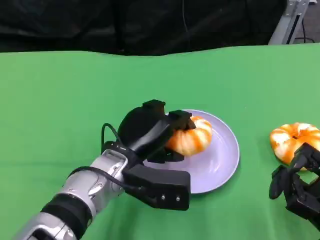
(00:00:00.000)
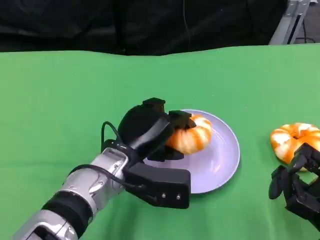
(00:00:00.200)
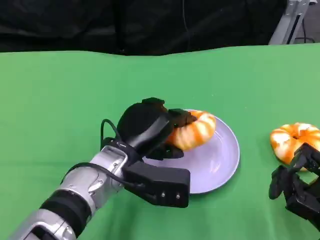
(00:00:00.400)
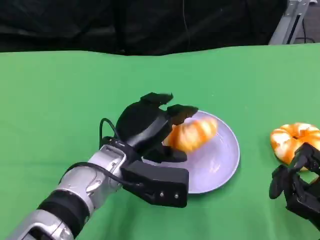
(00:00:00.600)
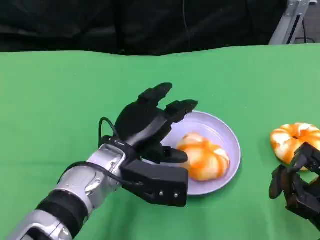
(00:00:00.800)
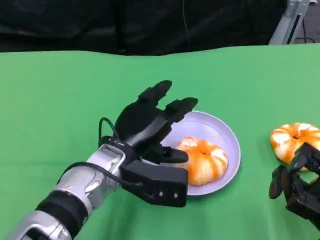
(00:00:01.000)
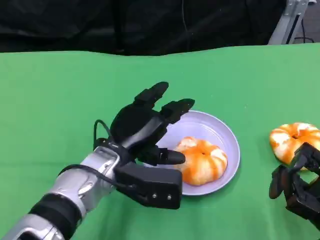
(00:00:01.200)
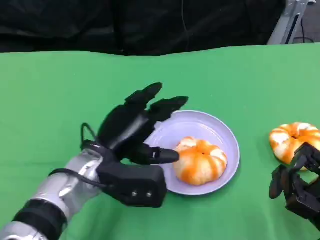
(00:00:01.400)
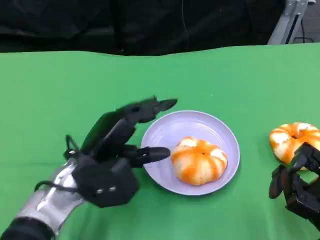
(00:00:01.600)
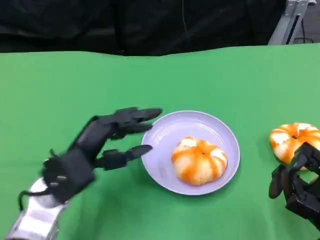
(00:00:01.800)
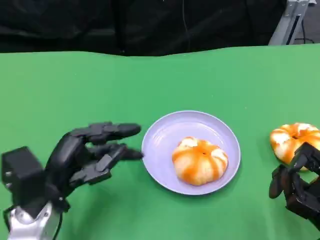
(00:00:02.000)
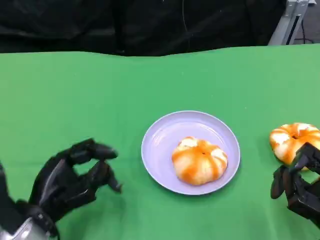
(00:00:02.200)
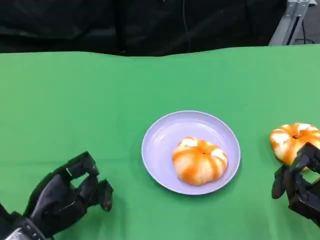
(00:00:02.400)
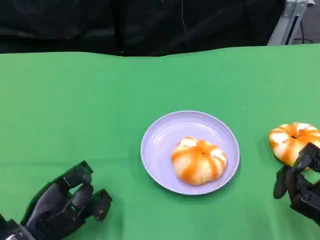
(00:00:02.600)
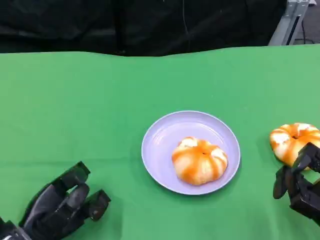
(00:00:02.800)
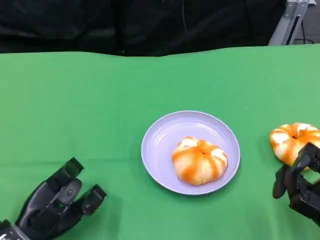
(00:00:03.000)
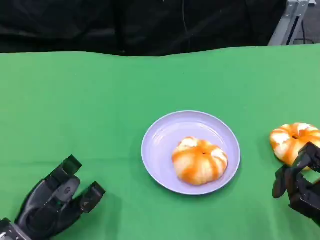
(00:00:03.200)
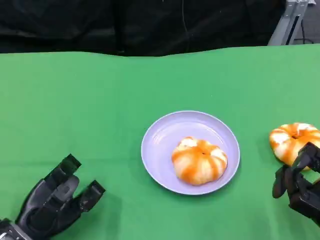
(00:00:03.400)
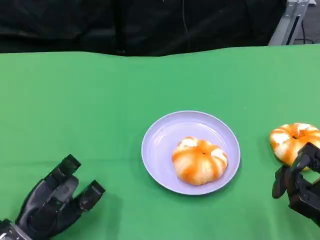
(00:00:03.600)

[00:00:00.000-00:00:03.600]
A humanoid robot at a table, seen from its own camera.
Task of the whole recording: Grasp the bread from the table and place it into the plate.
00:00:00.000 to 00:00:01.800: The left hand moves to the left, about 10 cm.
00:00:01.800 to 00:00:03.600: The left hand moves downward and to the left, approximately 10 cm.

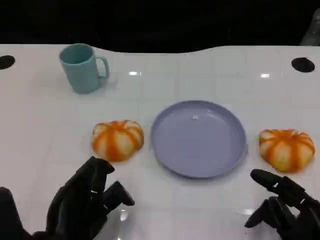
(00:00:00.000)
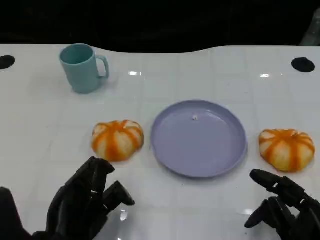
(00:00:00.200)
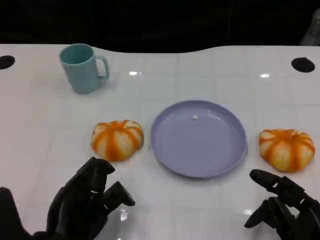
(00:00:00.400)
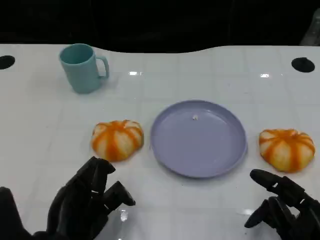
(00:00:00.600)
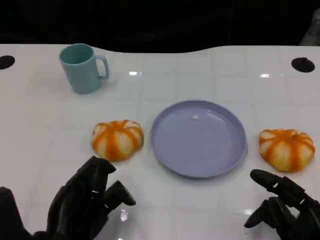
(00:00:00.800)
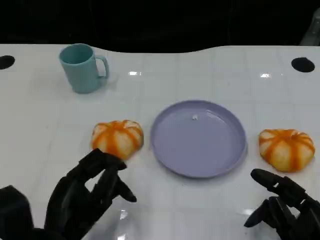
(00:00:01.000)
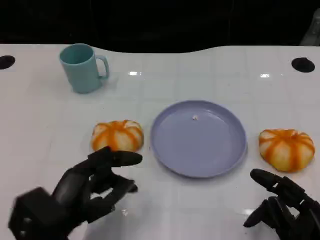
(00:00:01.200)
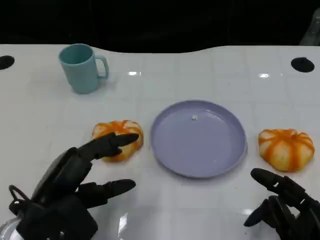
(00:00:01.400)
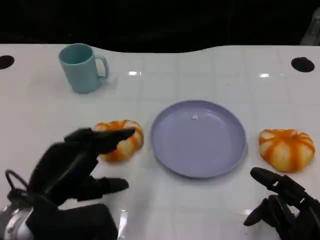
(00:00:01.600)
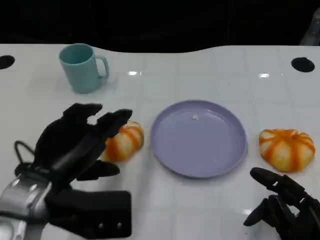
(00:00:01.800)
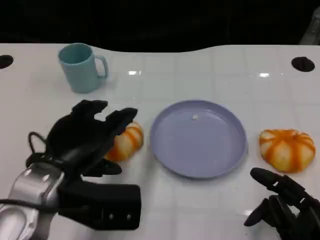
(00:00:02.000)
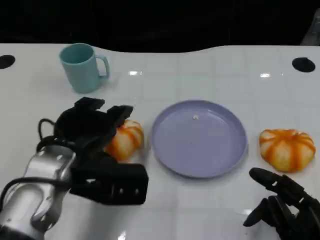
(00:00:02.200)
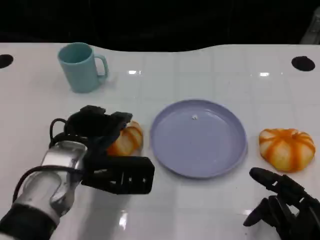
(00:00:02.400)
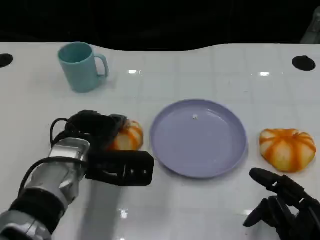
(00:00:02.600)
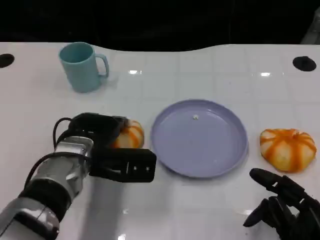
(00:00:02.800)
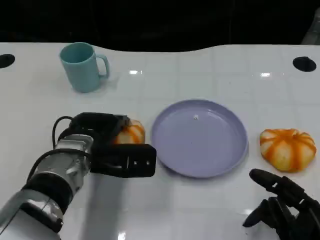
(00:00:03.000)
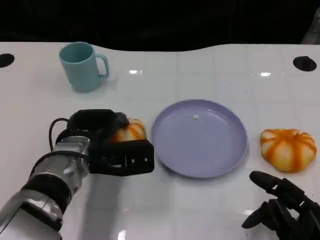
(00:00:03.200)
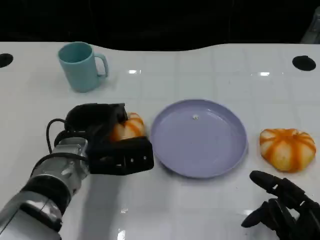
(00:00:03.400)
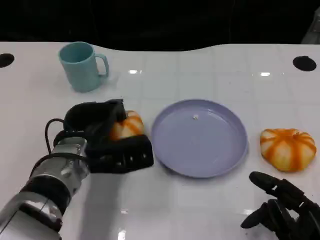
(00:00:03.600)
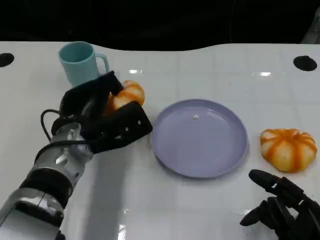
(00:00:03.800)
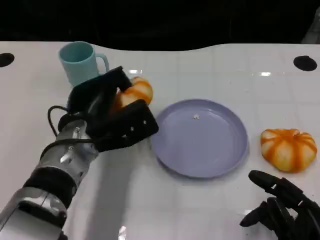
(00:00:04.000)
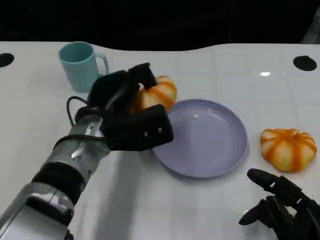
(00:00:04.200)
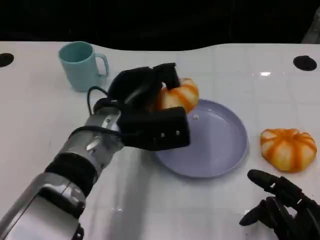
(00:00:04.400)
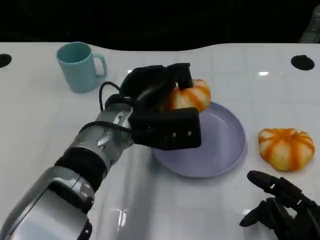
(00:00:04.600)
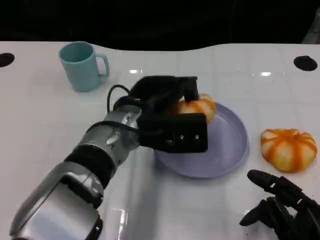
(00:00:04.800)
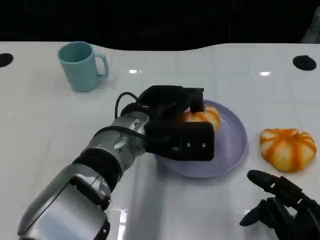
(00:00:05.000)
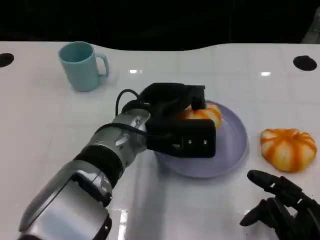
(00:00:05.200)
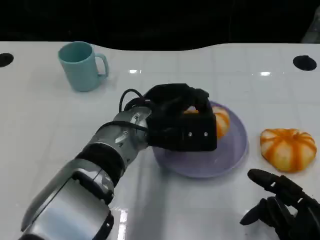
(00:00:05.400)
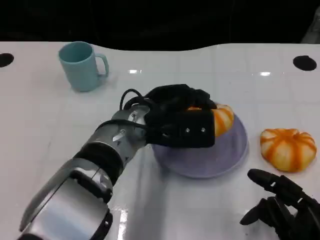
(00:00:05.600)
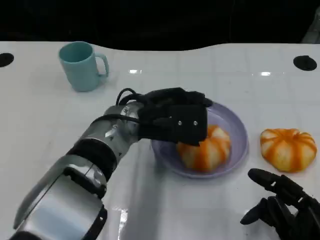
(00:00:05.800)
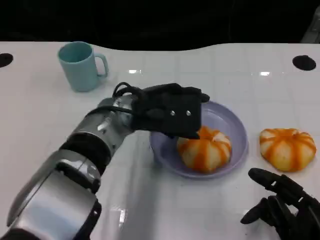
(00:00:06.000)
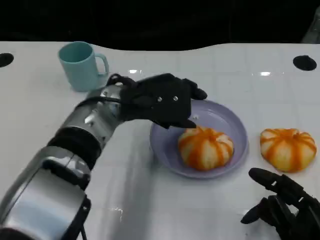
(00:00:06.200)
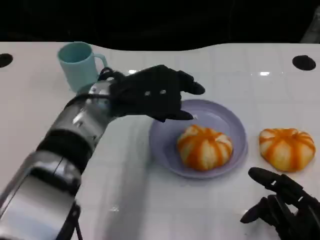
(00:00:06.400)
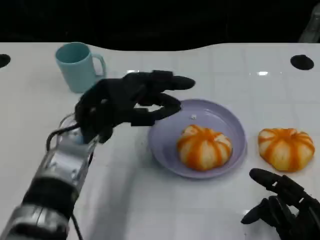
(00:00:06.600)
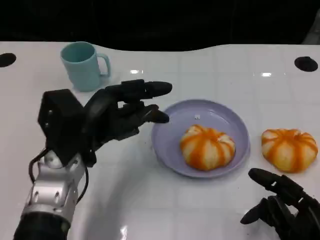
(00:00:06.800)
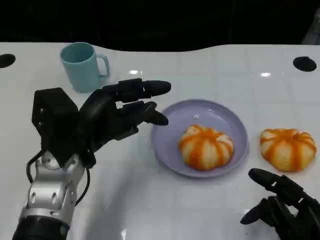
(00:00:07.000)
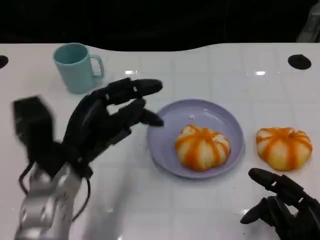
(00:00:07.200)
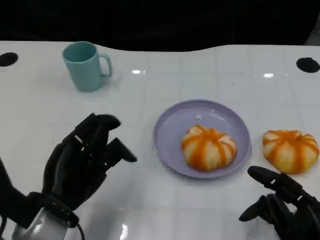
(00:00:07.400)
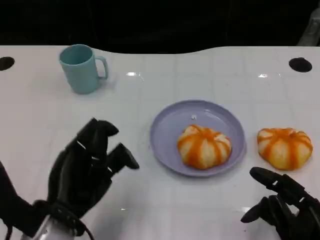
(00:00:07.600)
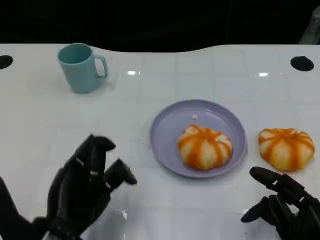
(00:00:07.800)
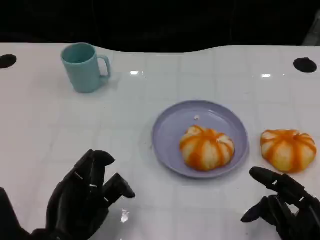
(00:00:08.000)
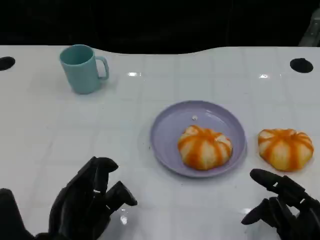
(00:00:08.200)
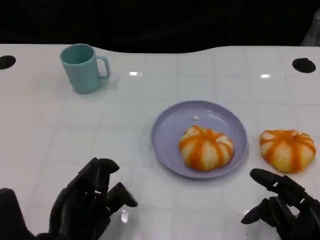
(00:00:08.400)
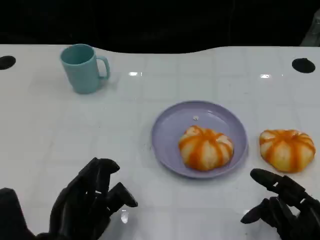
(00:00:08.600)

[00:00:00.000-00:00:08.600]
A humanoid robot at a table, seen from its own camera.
Task of the whole recording: Grasp the bread from the table and place it into the plate.
00:00:00.000 to 00:00:01.400: The left hand changes place by about 5 cm.
00:00:01.400 to 00:00:02.800: The left hand travels forward and to the right by approximately 15 cm.
00:00:02.800 to 00:00:04.400: The left hand moves to the right, about 5 cm.
00:00:05.800 to 00:00:07.200: The left hand is displaced to the left and backward by about 15 cm.
00:00:07.200 to 00:00:08.600: The left hand heads backward, covering about 10 cm.

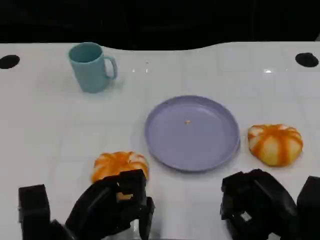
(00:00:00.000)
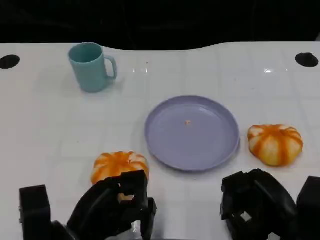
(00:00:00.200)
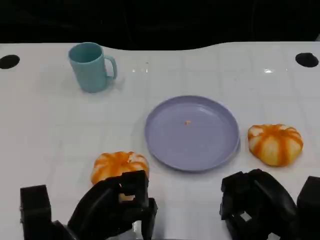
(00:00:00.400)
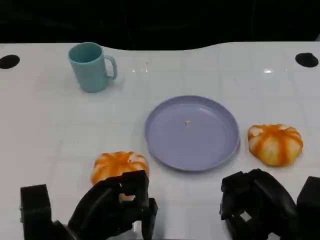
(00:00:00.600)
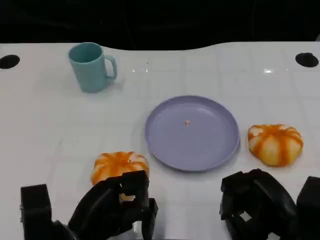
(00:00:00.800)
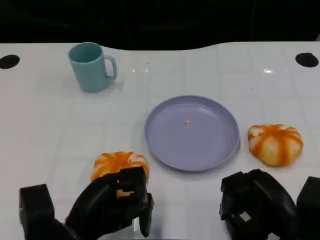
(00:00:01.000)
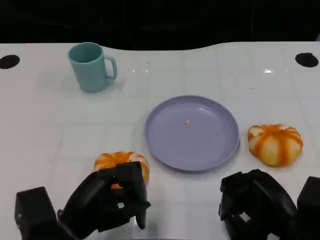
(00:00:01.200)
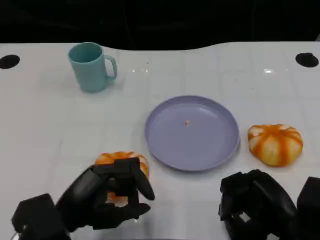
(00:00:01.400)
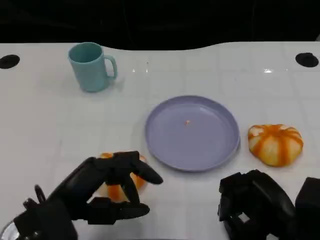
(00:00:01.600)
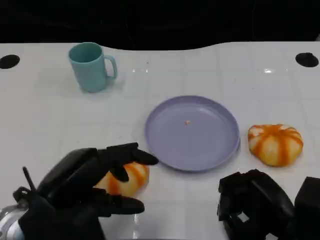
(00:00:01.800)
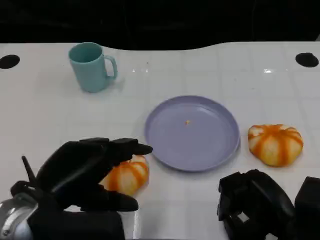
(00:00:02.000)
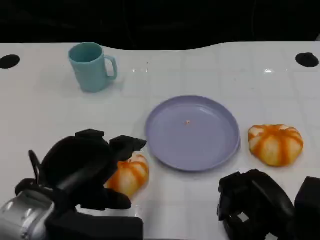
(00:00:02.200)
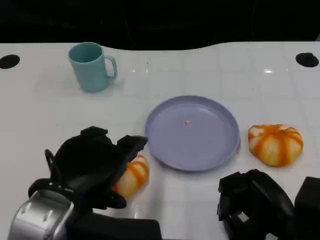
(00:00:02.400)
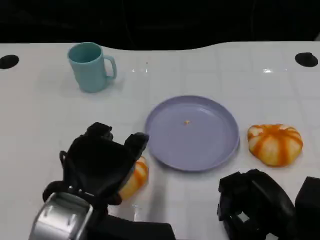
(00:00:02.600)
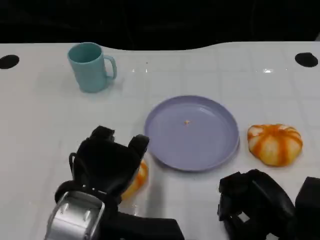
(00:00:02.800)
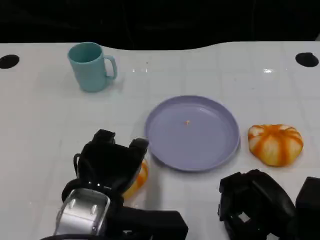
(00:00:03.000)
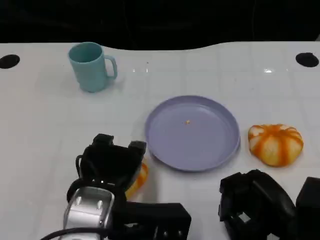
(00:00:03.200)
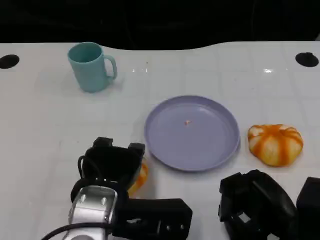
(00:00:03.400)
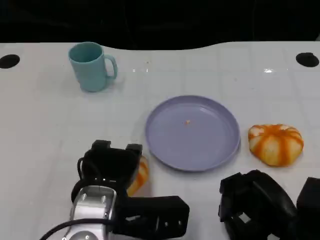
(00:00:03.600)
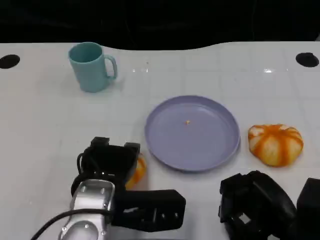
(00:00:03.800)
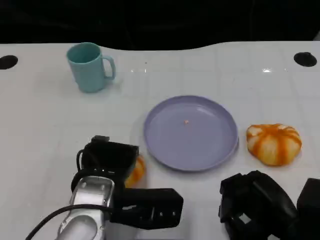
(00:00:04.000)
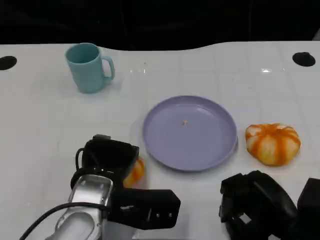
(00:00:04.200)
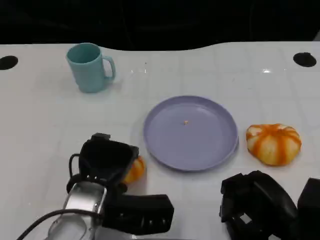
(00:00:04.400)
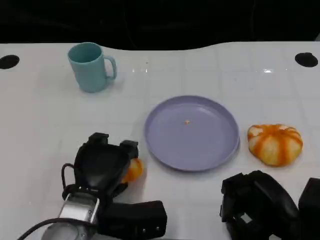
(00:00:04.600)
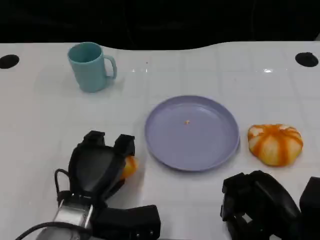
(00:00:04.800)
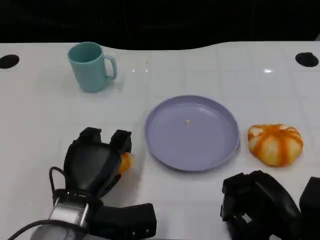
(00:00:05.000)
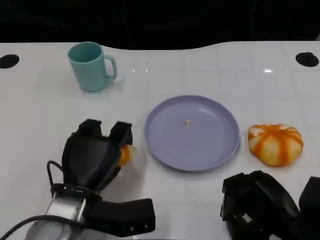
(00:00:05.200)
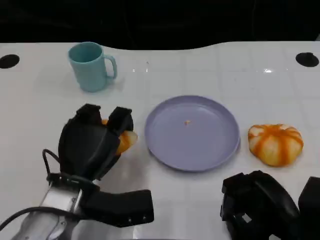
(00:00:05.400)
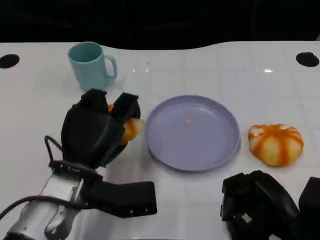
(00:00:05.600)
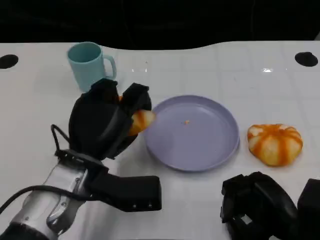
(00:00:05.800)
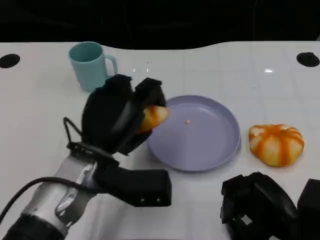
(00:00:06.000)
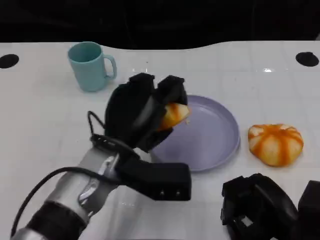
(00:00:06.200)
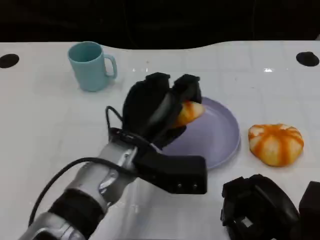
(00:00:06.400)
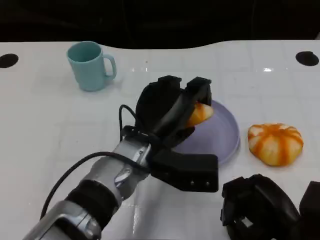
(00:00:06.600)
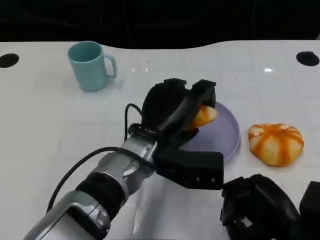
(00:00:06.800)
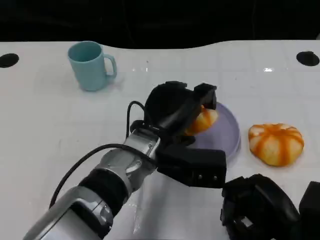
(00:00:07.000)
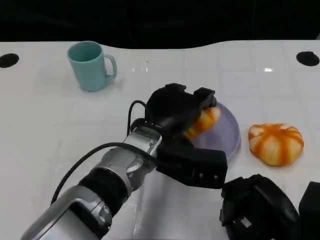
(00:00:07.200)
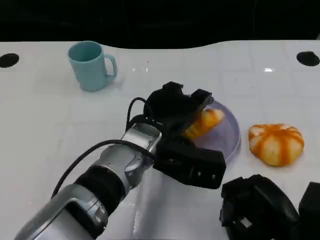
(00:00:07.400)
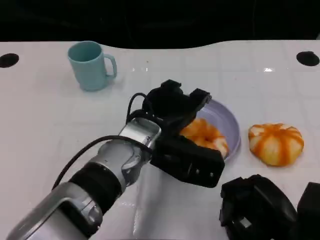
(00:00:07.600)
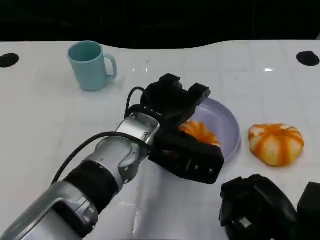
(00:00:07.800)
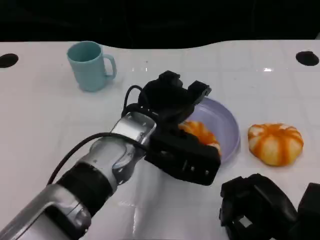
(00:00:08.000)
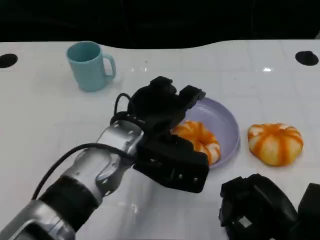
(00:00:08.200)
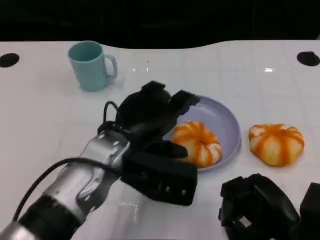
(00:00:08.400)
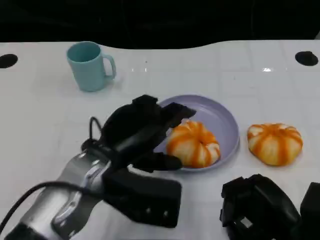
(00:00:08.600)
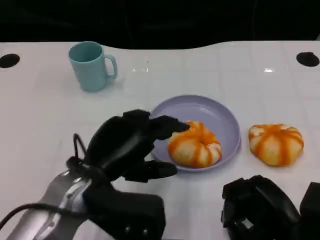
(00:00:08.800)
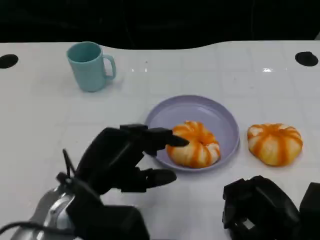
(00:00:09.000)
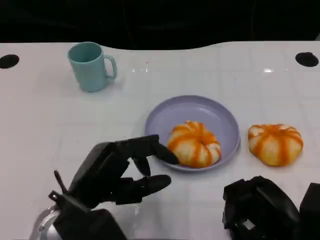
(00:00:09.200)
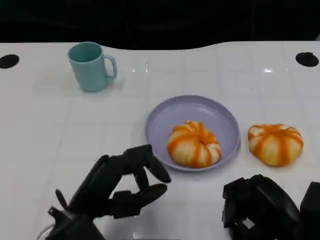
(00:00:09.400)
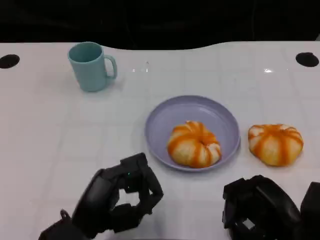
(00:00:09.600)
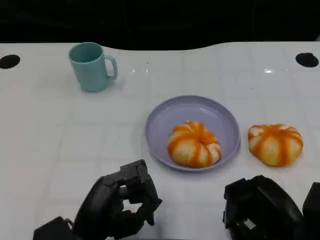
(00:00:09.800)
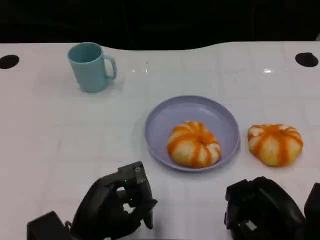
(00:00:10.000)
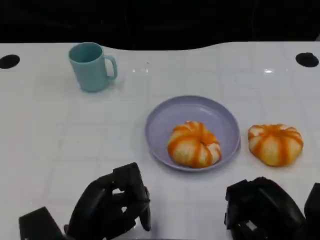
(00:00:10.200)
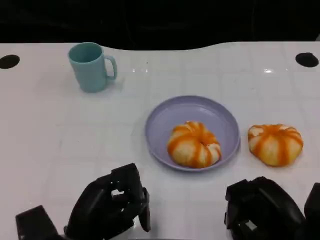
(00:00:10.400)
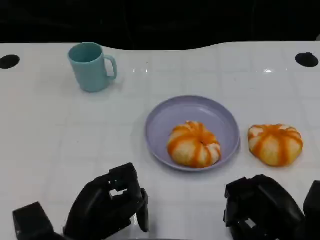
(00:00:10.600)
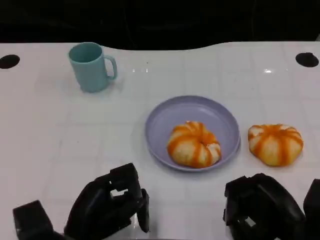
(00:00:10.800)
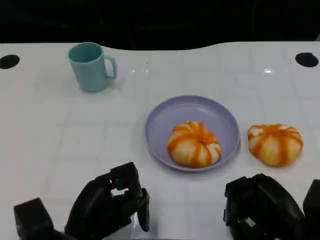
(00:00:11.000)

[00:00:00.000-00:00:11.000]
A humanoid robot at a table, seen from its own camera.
Task of the whole recording: Grasp the bread from the table and place it into the plate.
00:00:00.000 to 00:00:01.600: The left hand shifts approximately 5 cm upward.
00:00:01.600 to 00:00:03.200: The left hand goes about 10 cm to the right.
00:00:03.200 to 00:00:04.800: The left hand shifts some 10 cm downward.
00:00:04.800 to 00:00:06.200: The left hand moves upward and to the right, some 10 cm.
00:00:06.200 to 00:00:07.800: The left hand changes place by some 5 cm.
00:00:07.800 to 00:00:09.400: The left hand goes roughly 15 cm to the left, backward and downward.
